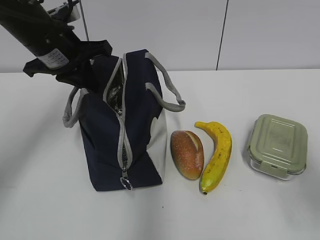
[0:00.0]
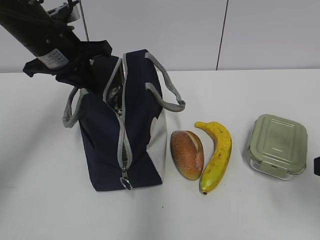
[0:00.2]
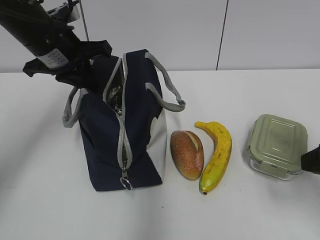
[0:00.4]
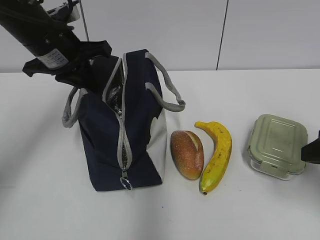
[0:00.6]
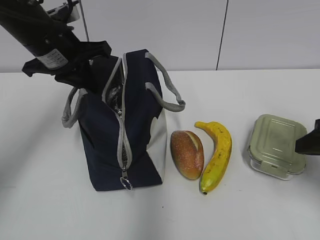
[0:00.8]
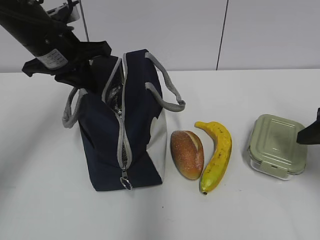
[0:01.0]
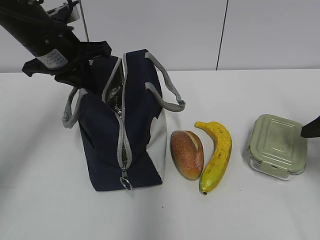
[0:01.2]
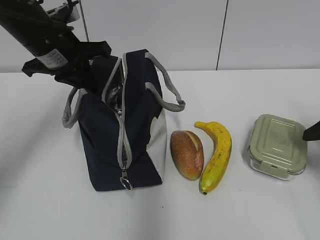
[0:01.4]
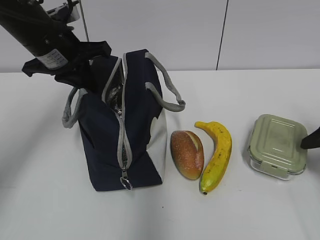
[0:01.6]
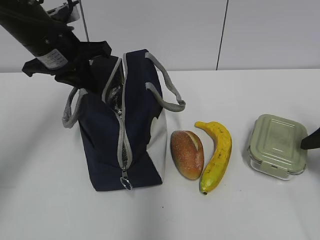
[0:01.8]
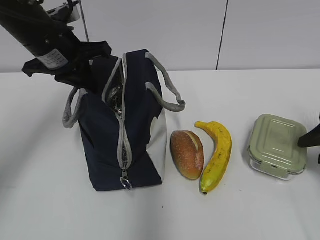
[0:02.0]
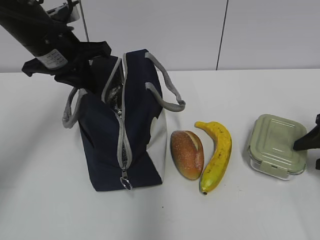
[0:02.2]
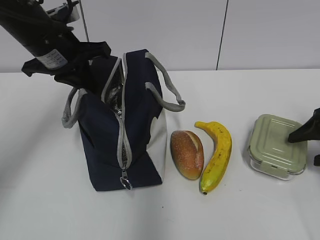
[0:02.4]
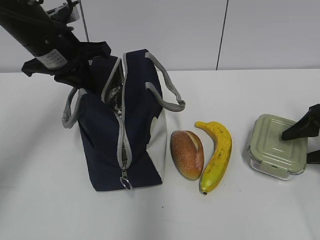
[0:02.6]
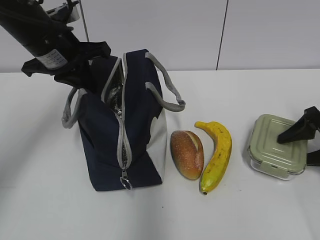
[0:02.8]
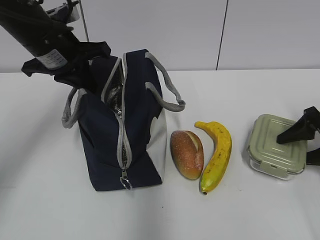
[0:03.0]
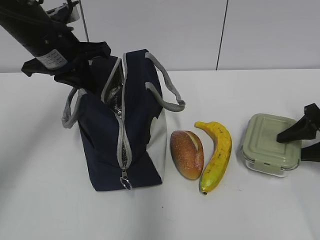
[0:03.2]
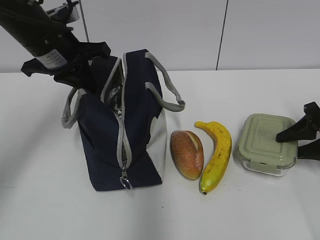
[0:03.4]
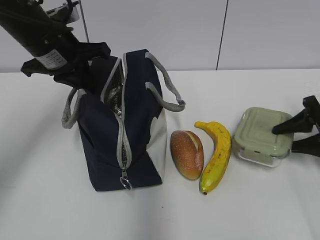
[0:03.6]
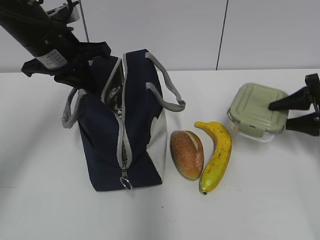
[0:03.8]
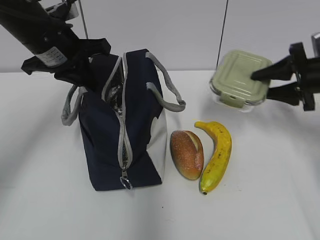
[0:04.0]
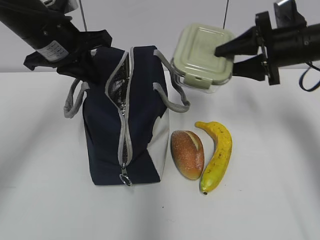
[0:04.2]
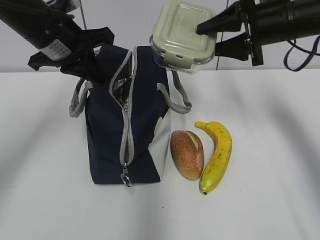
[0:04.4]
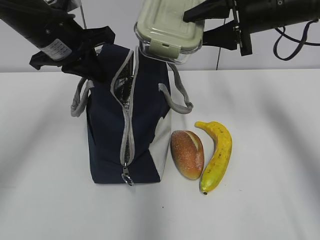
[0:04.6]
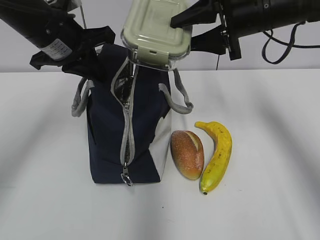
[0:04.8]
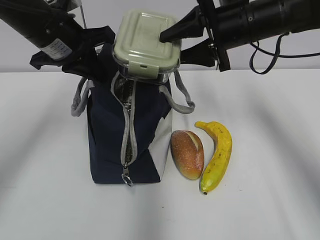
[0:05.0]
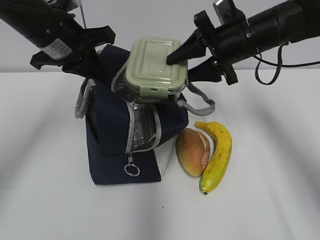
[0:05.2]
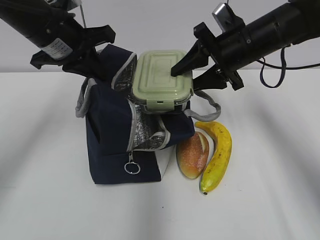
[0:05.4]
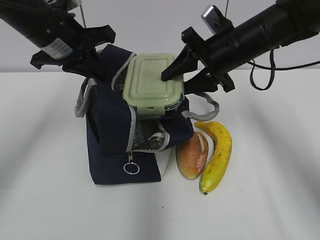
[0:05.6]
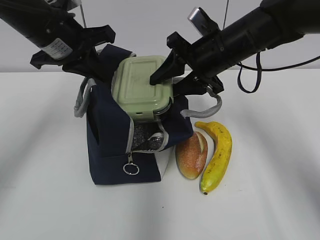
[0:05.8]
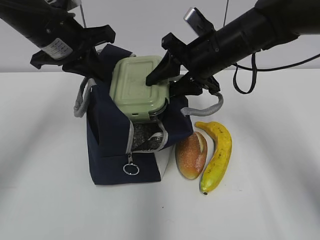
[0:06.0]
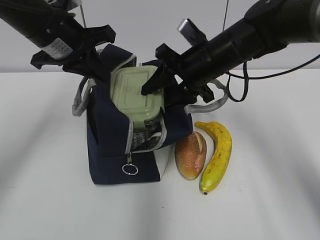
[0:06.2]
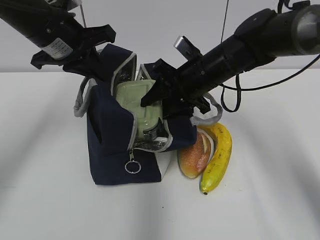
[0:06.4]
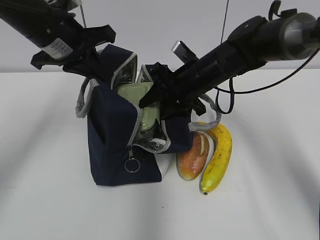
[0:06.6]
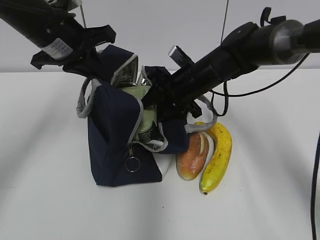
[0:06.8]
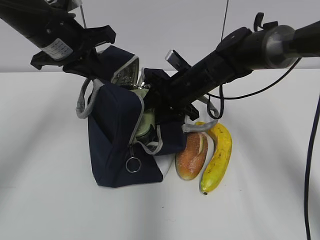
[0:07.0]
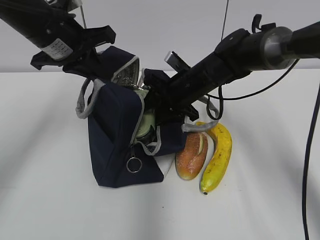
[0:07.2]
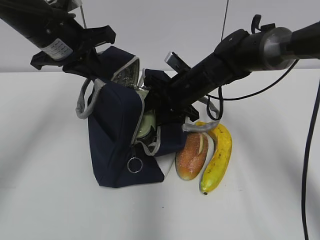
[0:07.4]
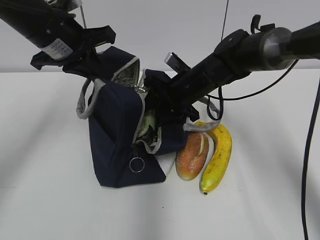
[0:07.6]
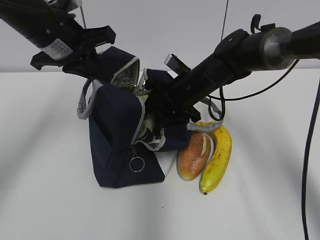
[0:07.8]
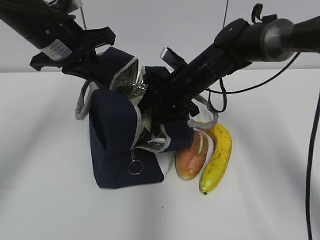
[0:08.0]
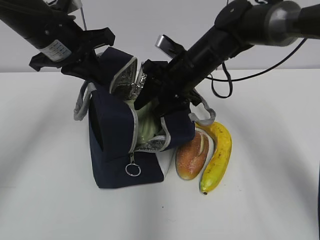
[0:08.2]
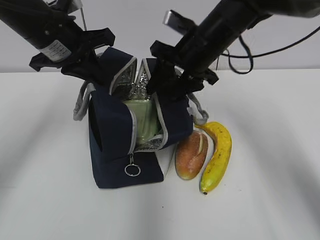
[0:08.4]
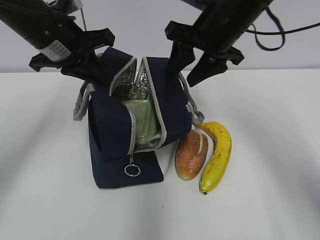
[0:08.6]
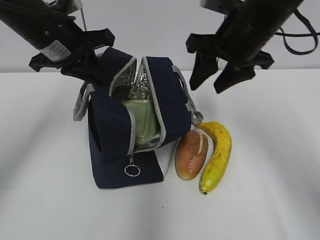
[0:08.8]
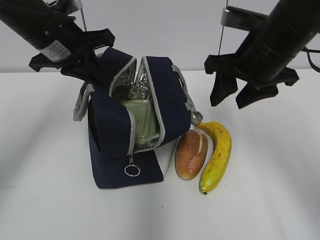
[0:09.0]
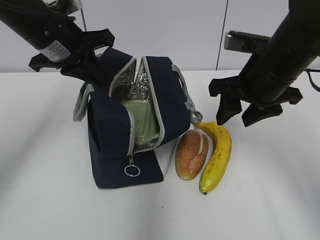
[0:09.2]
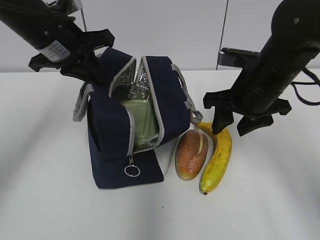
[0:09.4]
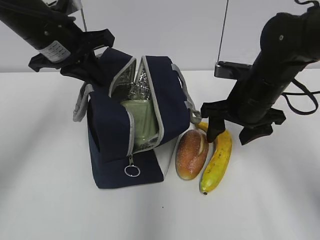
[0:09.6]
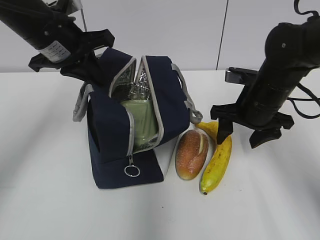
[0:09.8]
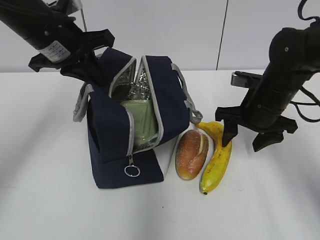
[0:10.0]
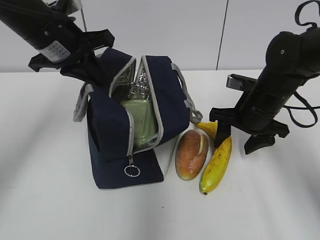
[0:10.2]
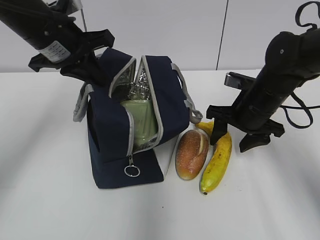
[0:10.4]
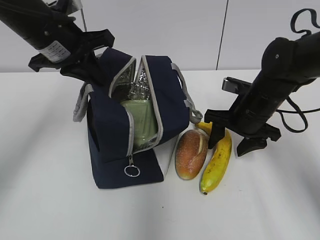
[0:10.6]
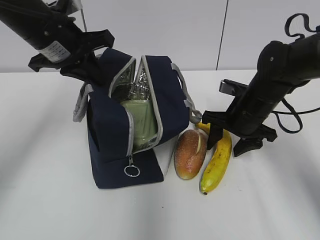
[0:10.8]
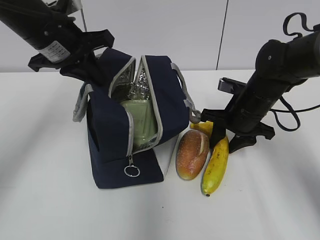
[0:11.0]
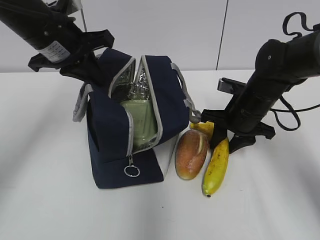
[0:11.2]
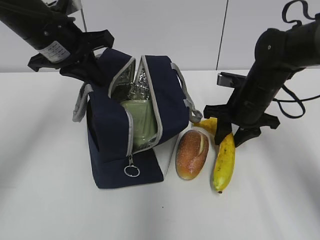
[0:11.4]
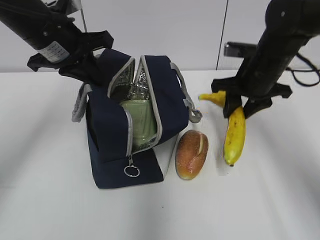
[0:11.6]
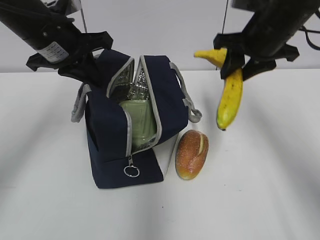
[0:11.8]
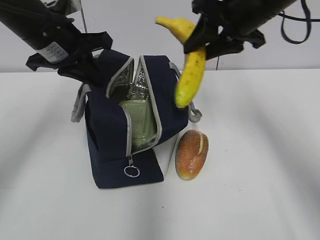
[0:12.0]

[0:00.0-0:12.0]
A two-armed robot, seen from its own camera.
0:00.0 to 0:01.6: The right gripper heads forward, downward and to the right, covering some 20 cm.
0:01.6 to 0:03.0: The right gripper moves some 5 cm.
0:03.0 to 0:04.4: The right gripper heads upward, to the left and forward, covering some 25 cm.
0:04.4 to 0:06.0: The right gripper is displaced to the left by roughly 10 cm.
0:06.0 to 0:07.6: The right gripper moves downward, approximately 10 cm.
0:07.6 to 0:09.0: The right gripper is displaced upward, backward and to the right by roughly 20 cm.
0:09.0 to 0:10.4: The right gripper is displaced downward by approximately 10 cm.
0:10.4 to 0:12.0: The right gripper moves upward, about 15 cm, and closes.

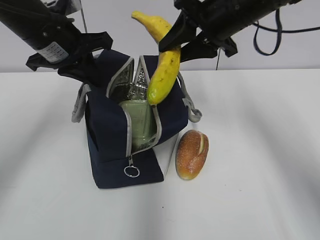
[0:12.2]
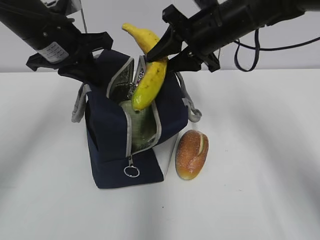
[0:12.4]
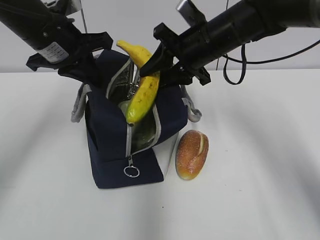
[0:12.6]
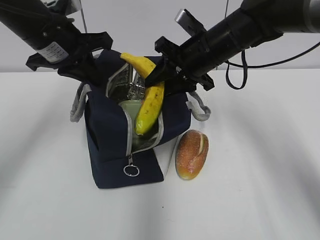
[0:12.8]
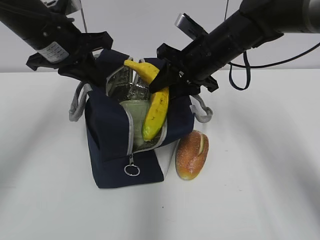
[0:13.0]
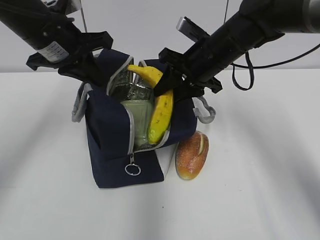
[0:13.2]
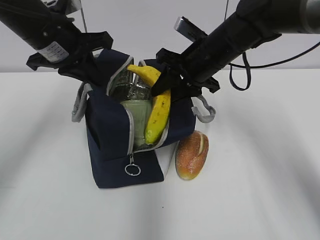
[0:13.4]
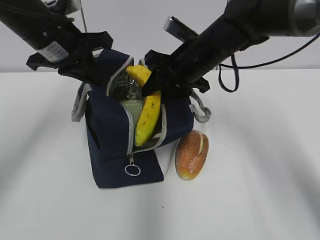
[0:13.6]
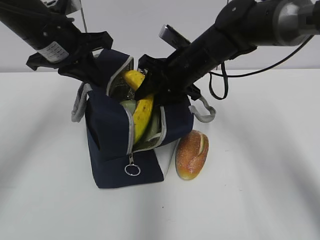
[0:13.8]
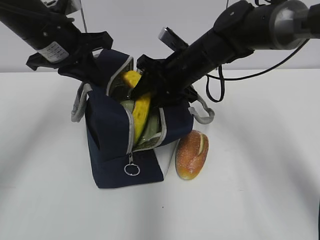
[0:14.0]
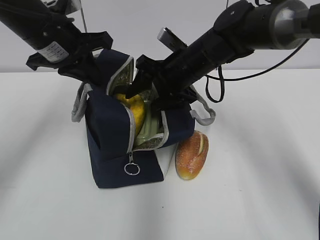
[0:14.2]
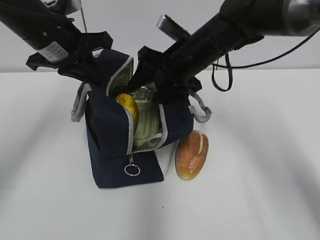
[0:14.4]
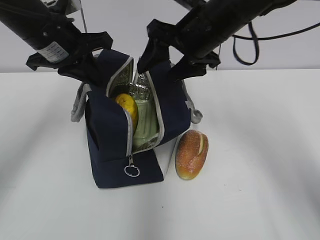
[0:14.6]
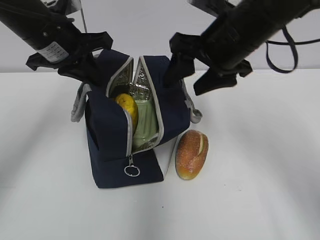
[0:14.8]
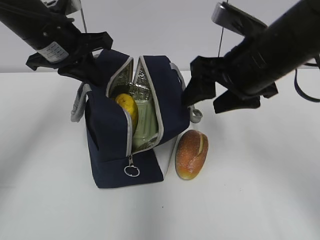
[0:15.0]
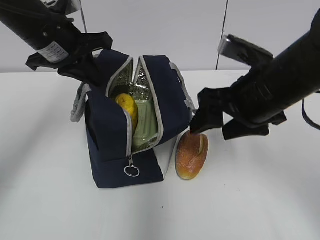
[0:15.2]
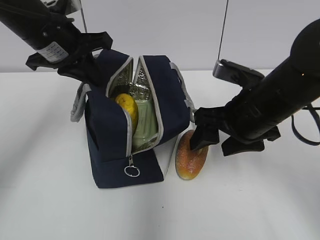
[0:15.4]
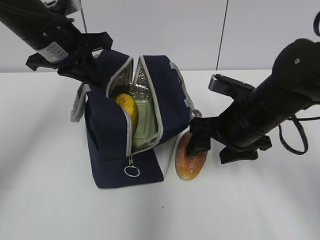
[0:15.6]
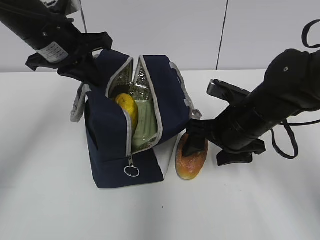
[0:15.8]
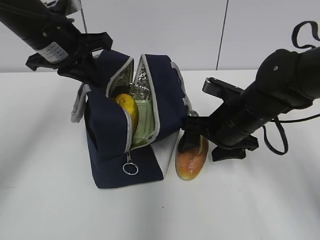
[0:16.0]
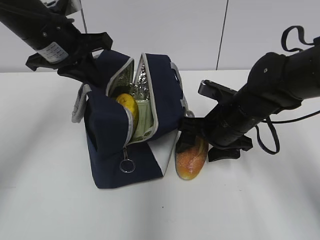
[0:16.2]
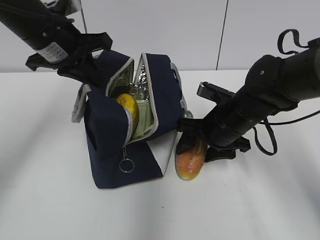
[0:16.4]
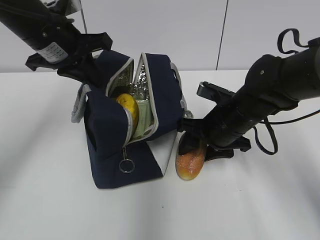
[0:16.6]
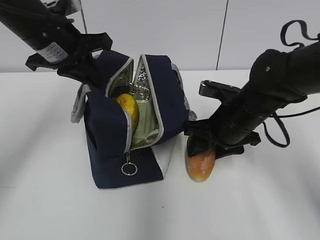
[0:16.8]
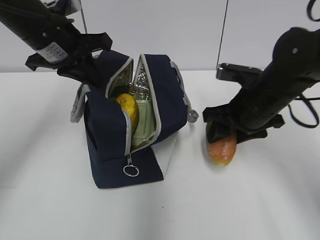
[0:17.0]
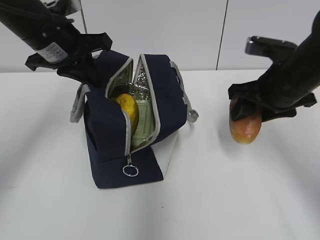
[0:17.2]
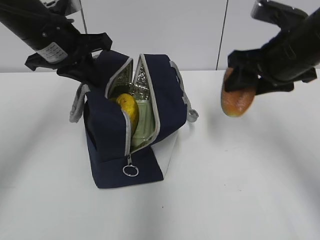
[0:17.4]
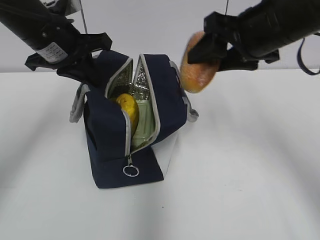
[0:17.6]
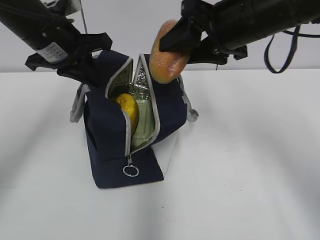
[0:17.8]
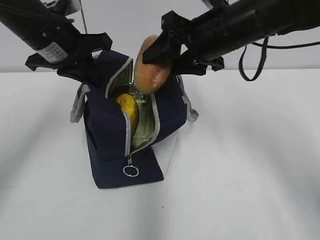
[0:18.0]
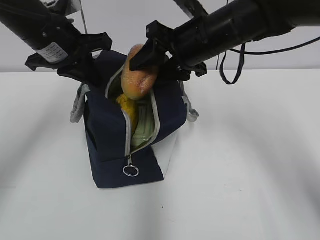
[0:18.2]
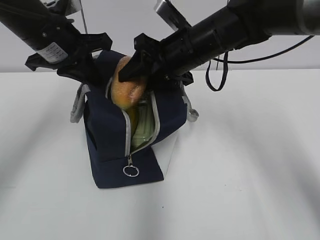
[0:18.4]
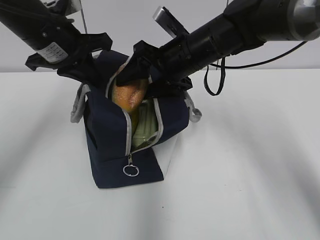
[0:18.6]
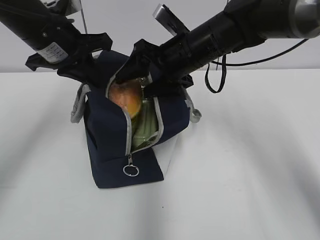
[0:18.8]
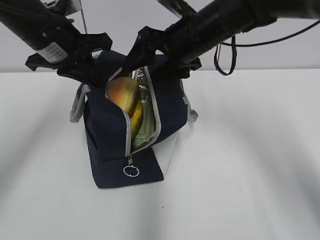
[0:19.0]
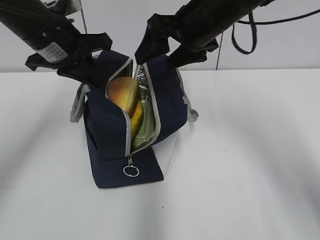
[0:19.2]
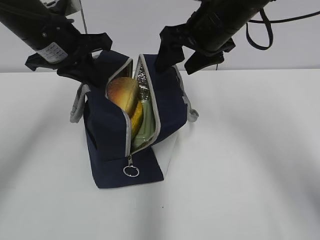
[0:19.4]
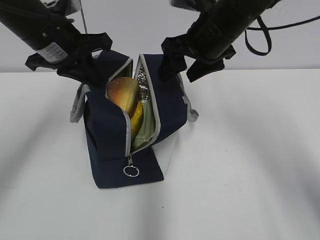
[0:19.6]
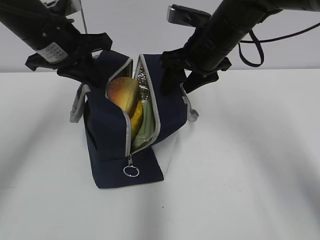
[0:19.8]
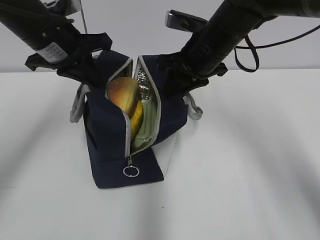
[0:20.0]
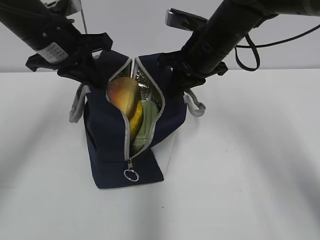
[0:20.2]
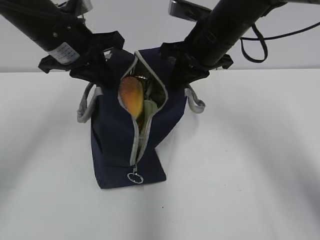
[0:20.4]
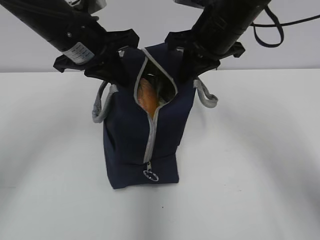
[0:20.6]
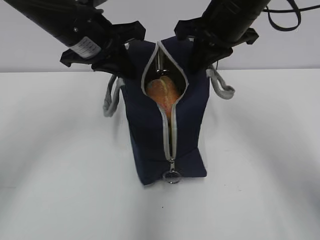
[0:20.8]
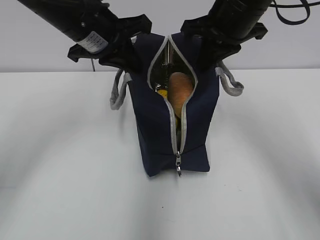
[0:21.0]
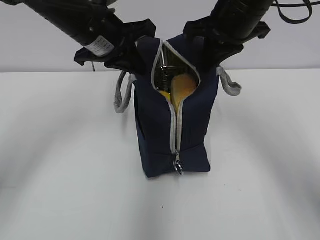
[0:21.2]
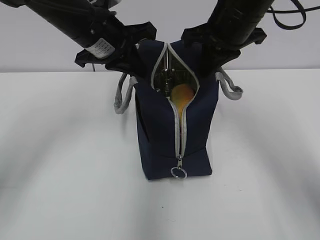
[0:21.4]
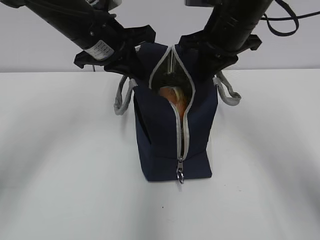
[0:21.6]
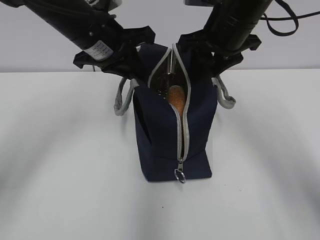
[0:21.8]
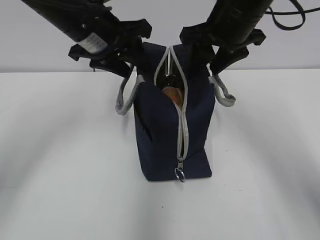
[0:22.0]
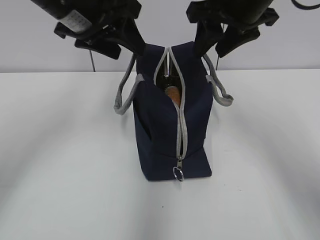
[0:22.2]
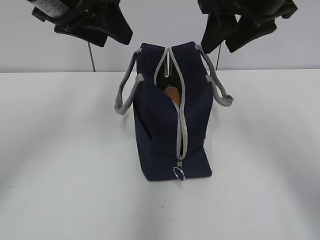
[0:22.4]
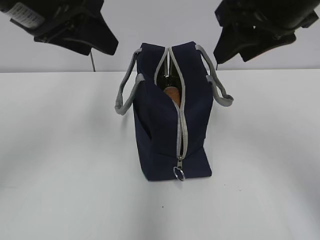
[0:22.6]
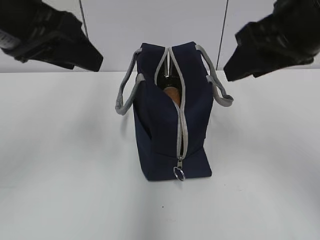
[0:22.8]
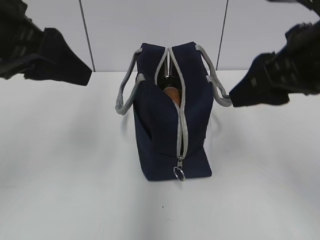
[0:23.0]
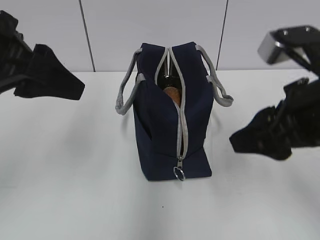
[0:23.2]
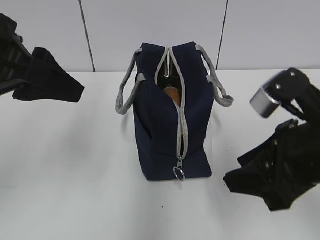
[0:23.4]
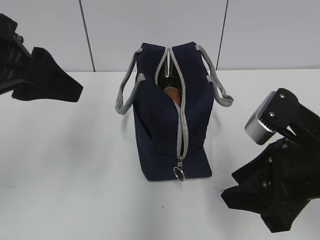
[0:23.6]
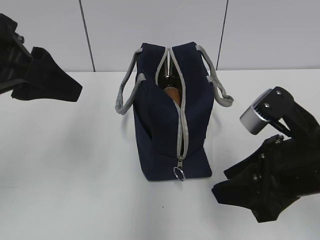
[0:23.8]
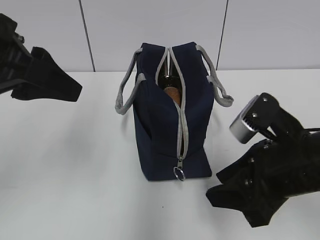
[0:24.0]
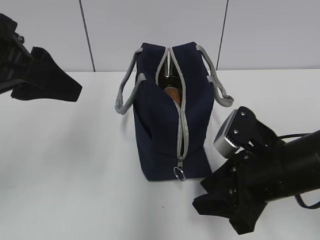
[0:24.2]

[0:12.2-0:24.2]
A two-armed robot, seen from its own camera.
0:12.2 to 0:13.8: The right gripper goes roughly 10 cm downward and to the left.
0:13.8 to 0:15.2: The right gripper shifts approximately 15 cm backward and to the right, and opens its fingers.
0:15.2 to 0:16.6: The right gripper moves downward and forward, roughly 10 cm.
0:16.6 to 0:18.2: The right gripper travels upward by about 15 cm.
0:19.8 to 0:21.2: The right gripper shifts roughly 5 cm upward, and closes its fingers, while the left gripper moves to the right, about 5 cm.
0:21.2 to 0:22.6: The left gripper is displaced backward and upward by some 10 cm, and opens up, while the right gripper is displaced backward by about 5 cm, and opens.
0:22.6 to 0:24.2: The right gripper is displaced downward and backward by roughly 20 cm. Meanwhile the left gripper goes roughly 5 cm backward.
